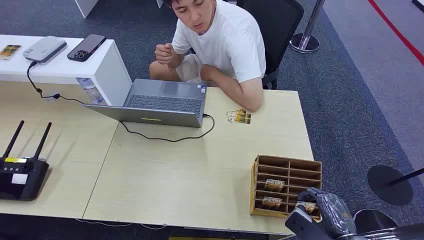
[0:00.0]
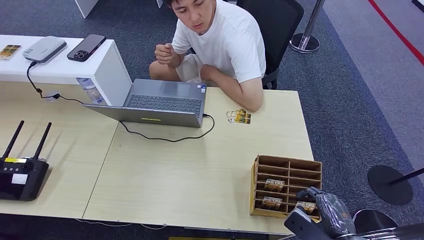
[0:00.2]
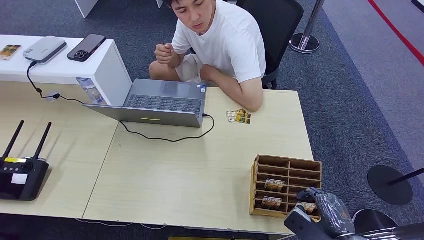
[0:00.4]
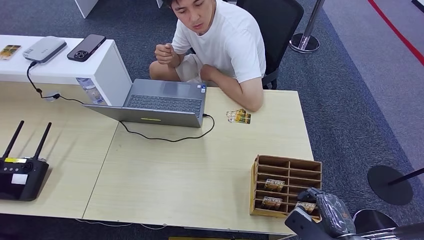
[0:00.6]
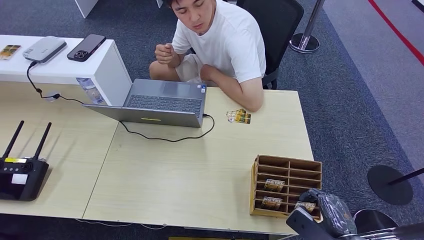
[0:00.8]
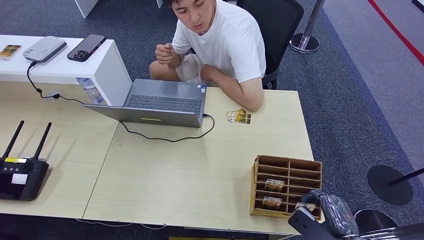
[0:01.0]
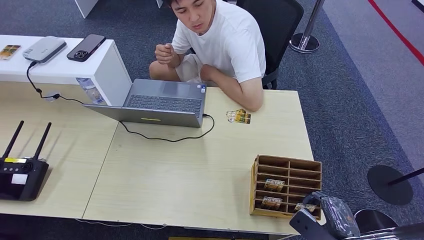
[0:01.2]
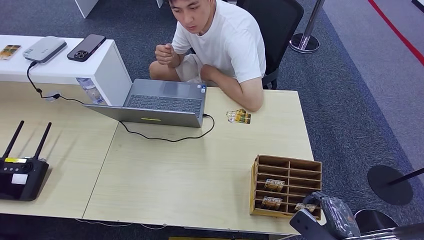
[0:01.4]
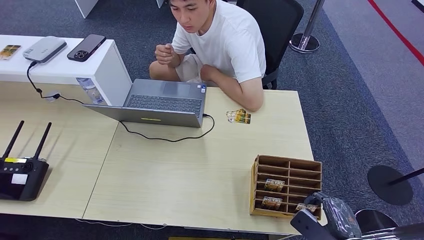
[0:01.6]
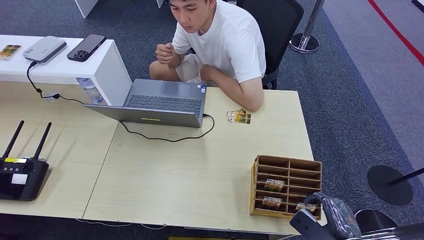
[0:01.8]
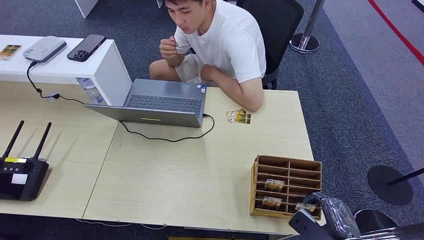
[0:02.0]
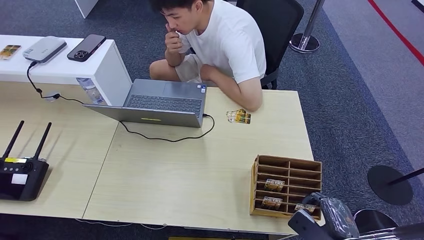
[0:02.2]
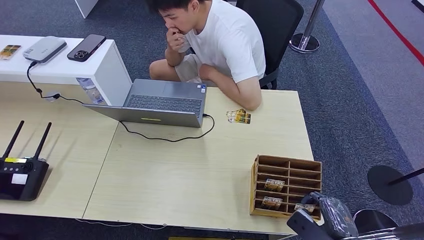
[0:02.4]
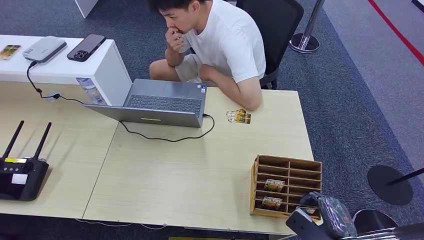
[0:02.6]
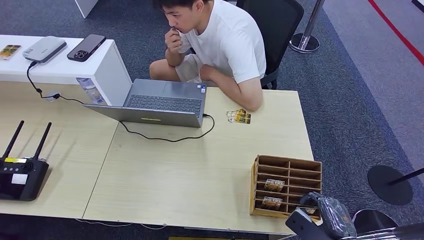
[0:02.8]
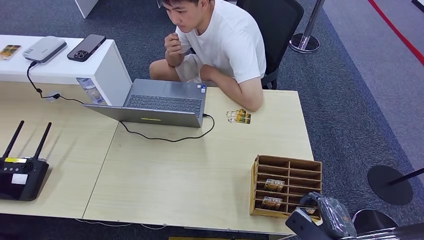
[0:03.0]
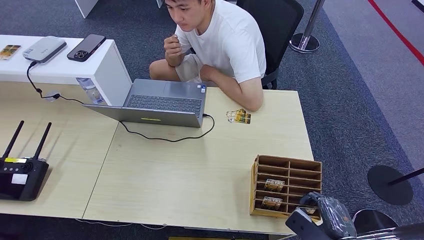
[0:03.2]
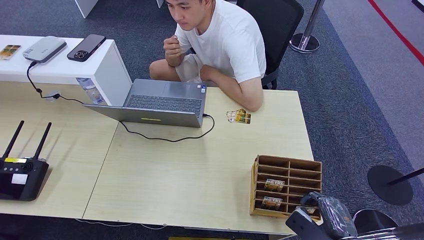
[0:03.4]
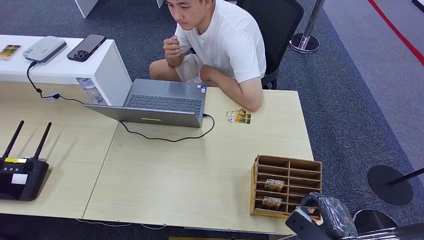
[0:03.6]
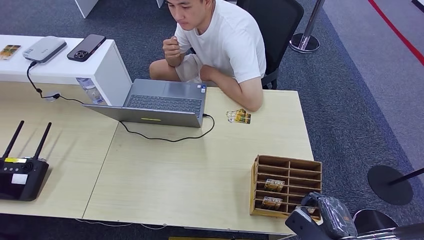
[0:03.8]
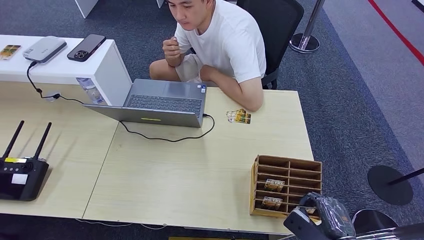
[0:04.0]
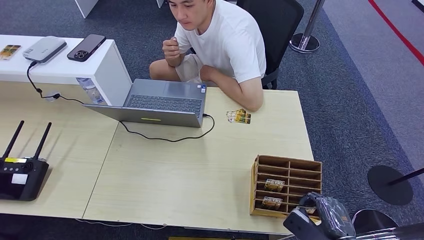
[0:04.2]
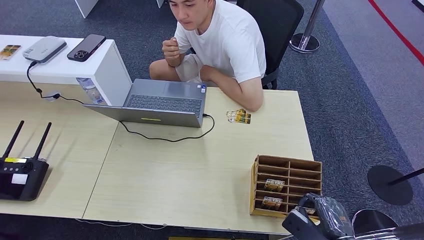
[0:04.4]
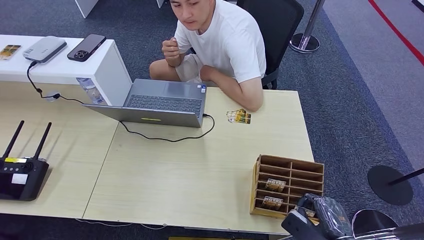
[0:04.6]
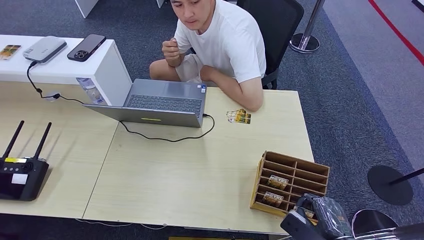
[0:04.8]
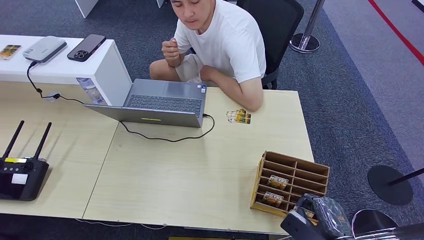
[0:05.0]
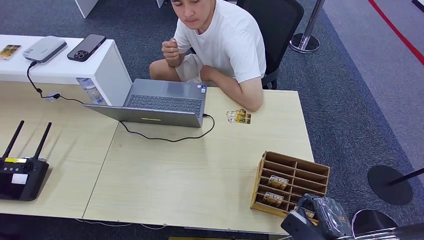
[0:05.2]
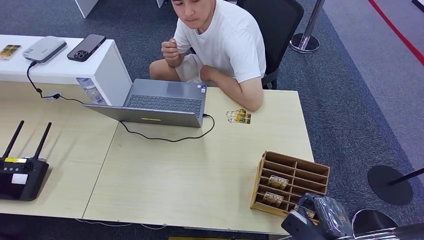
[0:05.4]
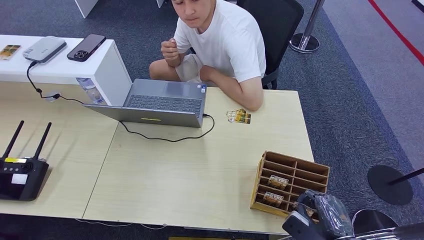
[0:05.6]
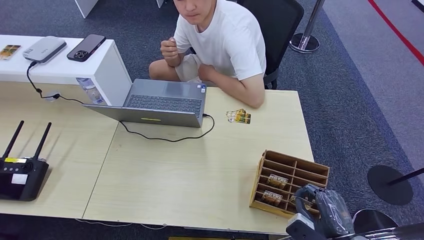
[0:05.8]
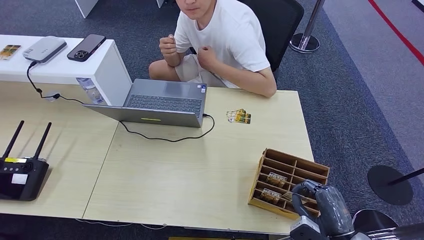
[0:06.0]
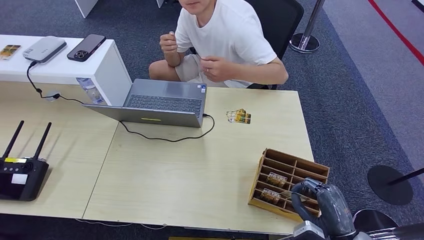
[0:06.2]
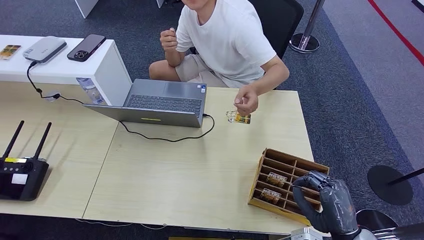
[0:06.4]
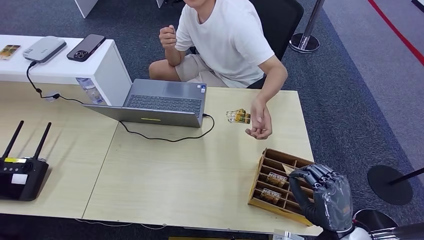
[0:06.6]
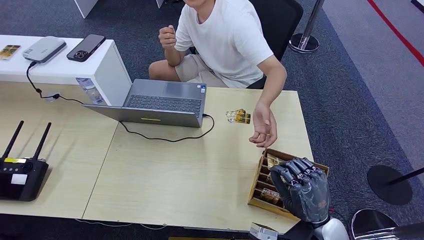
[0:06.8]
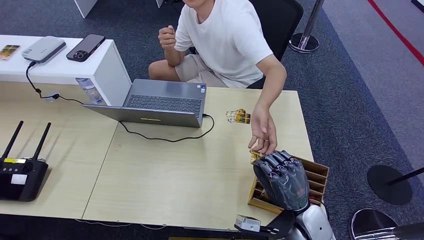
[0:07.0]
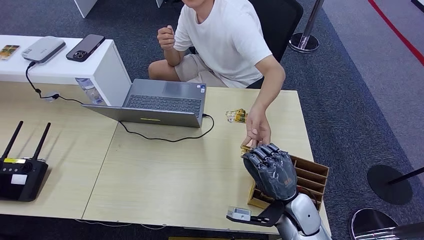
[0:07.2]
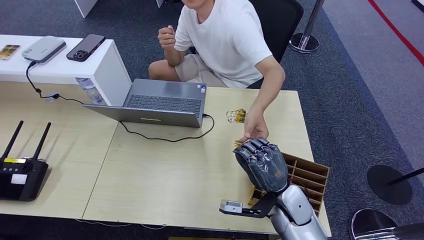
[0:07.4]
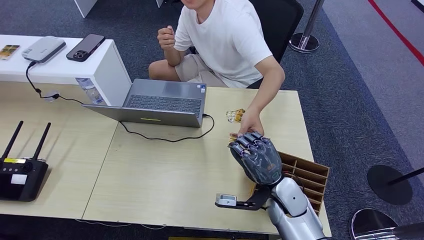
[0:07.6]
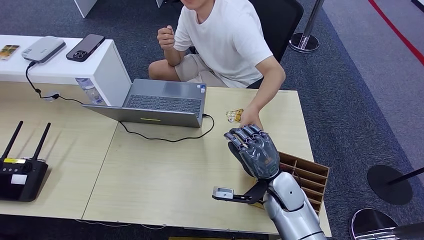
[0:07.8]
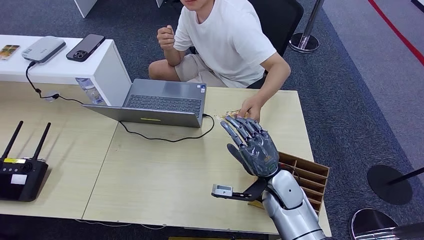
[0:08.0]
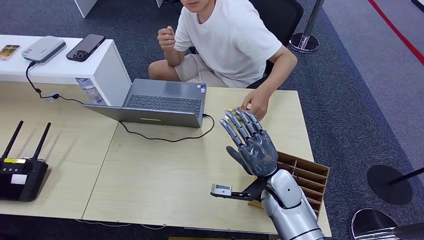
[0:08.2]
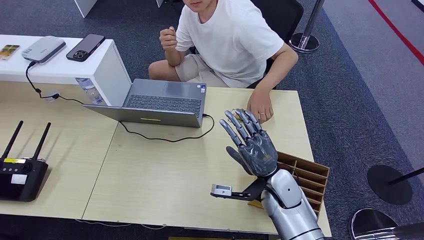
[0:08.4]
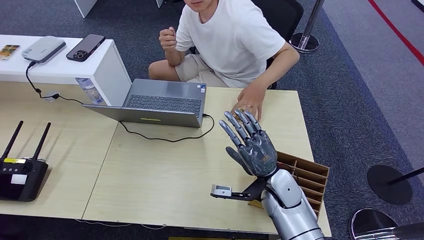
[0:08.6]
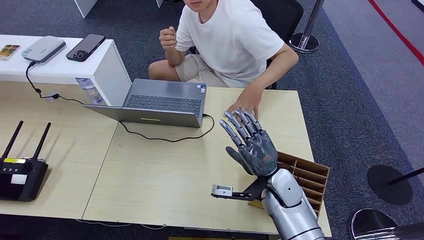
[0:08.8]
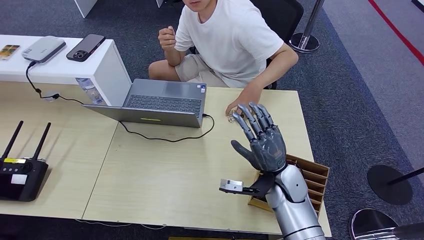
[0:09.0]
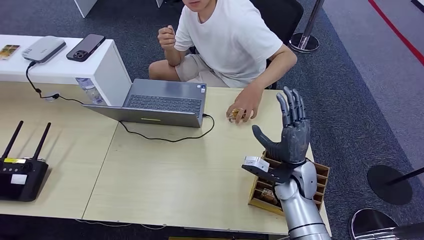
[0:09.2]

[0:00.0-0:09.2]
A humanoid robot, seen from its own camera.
Step, 0:00.0 to 0:06.6: Pick up the key card from the card box.
Step, 0:07.0 to 0:09.0: Hand the key card to the target.
0:01.6 to 0:04.6: Both hands stay about where they are.
0:06.2 to 0:07.6: The right hand moves forward and to the left, approximately 20 cm.

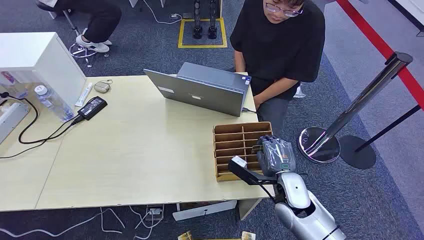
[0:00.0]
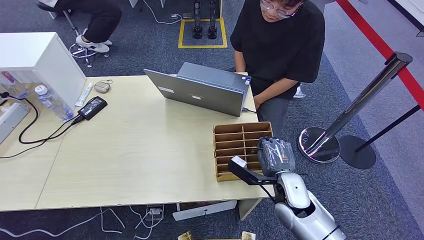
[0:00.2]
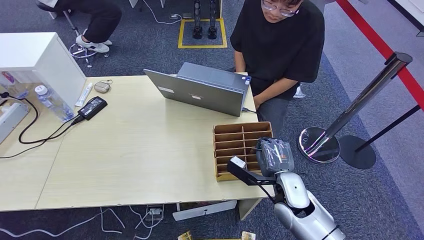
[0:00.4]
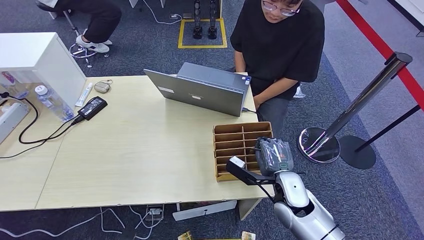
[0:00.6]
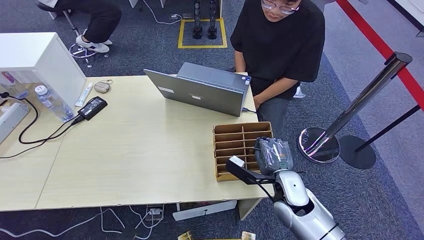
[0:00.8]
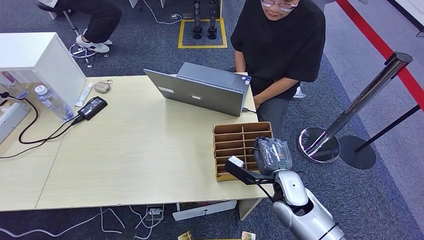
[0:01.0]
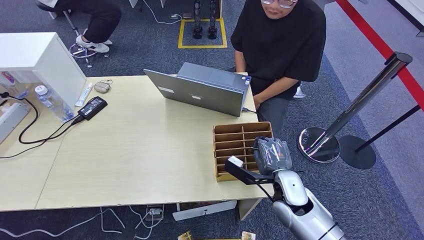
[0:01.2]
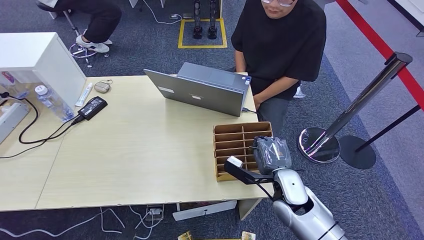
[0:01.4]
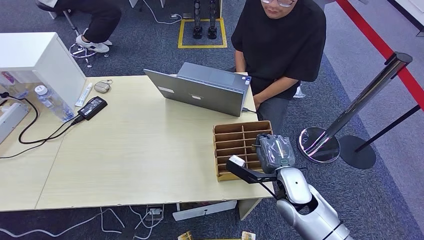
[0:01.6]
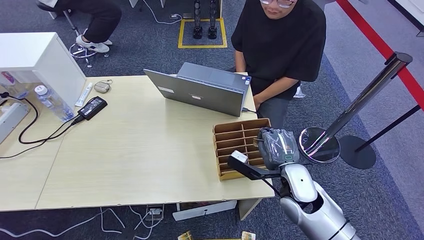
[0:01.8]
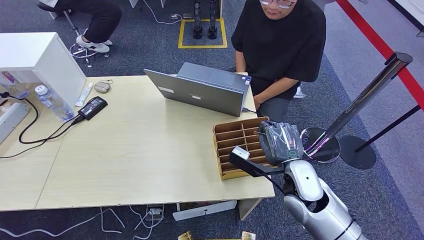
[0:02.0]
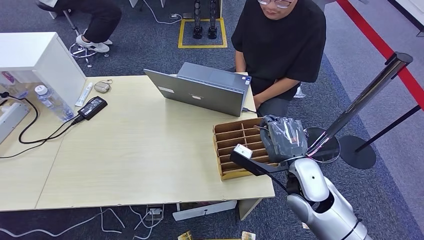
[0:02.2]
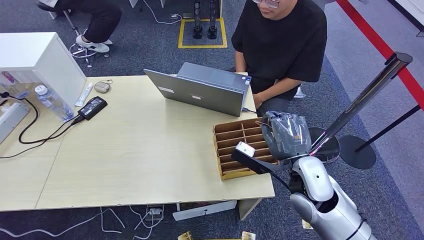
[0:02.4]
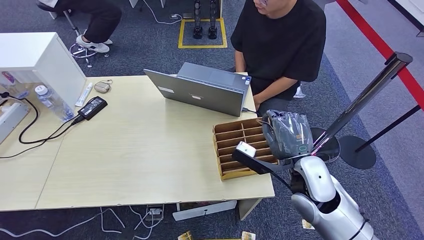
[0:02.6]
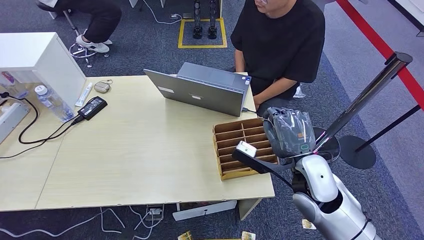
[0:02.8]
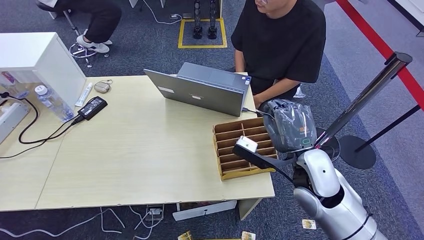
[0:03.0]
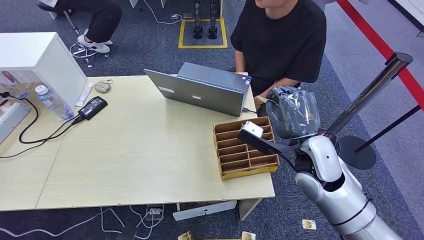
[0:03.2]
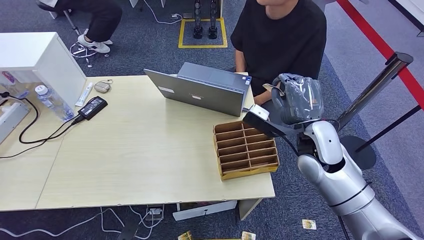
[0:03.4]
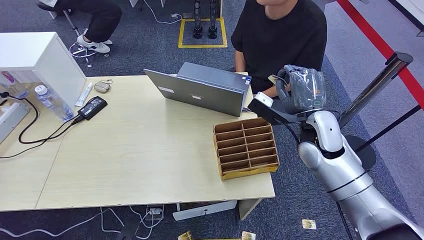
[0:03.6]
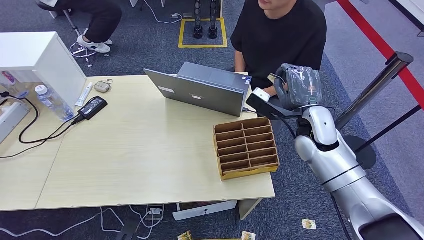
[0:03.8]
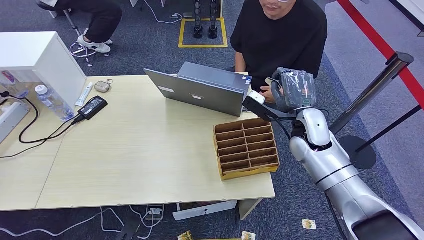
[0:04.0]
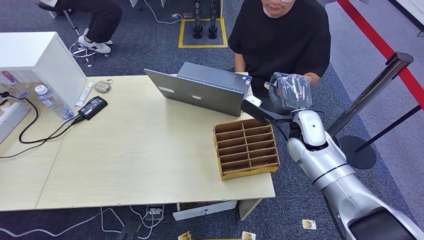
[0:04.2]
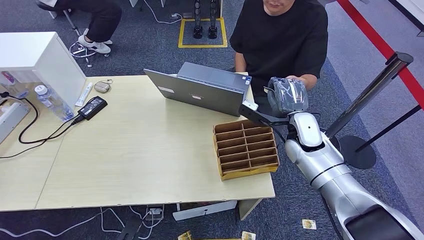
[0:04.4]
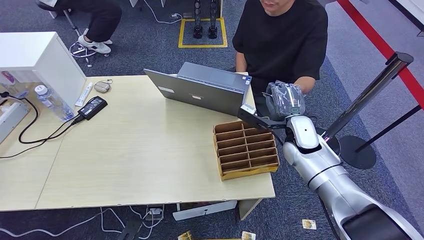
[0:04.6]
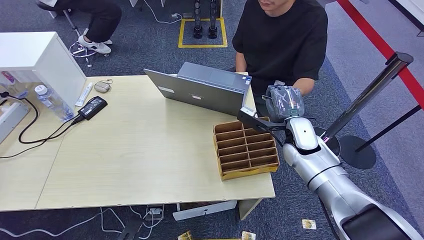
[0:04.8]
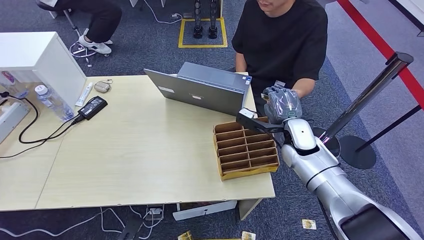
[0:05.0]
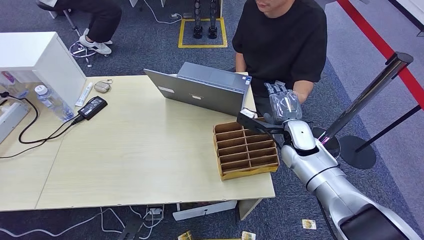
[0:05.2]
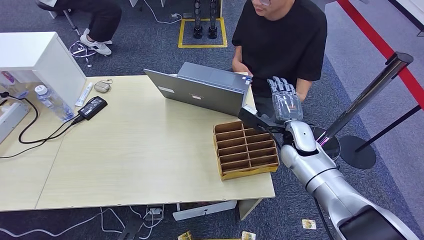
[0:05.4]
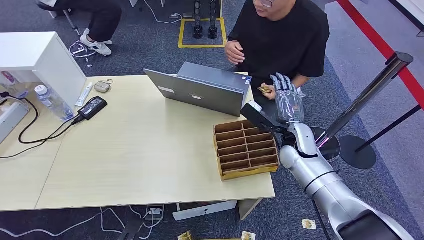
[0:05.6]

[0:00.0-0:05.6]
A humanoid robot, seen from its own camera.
Step, 0:00.0 to 0:02.6: Pick up the key card from the card box.
Step, 0:02.8 to 0:05.4: Hand the key card to the target.
0:01.4 to 0:02.8: The right hand heads upward, covering approximately 10 cm.
0:02.8 to 0:04.2: The right hand goes about 15 cm forward.
0:04.2 to 0:05.6: There are only small adjustments of the hands.

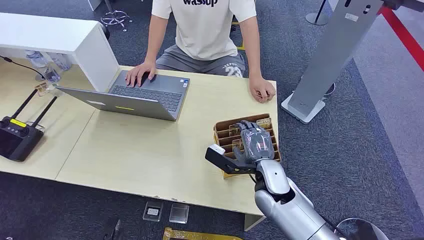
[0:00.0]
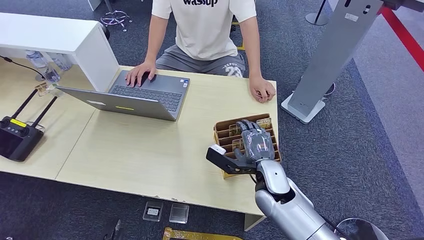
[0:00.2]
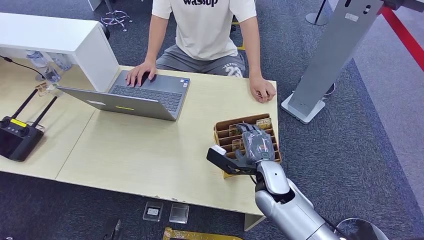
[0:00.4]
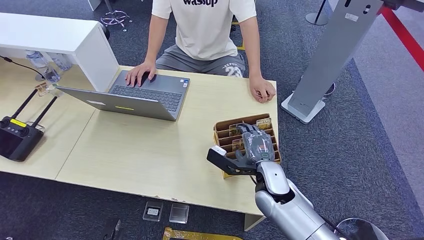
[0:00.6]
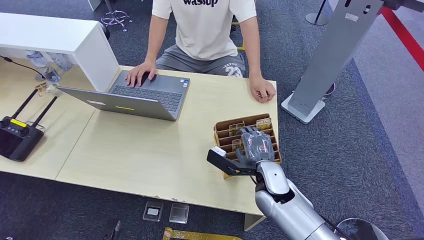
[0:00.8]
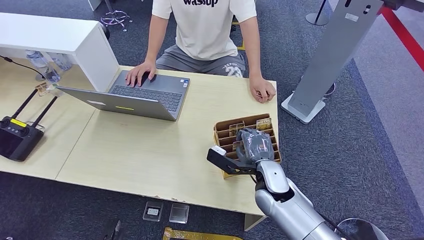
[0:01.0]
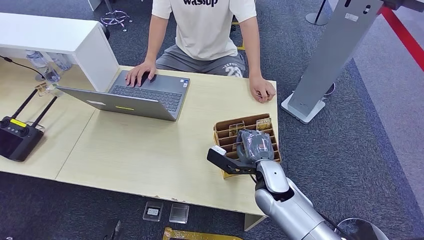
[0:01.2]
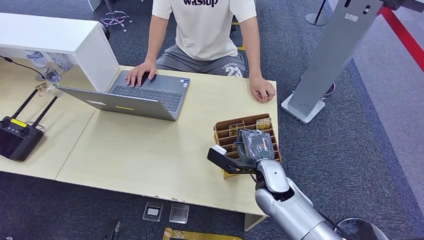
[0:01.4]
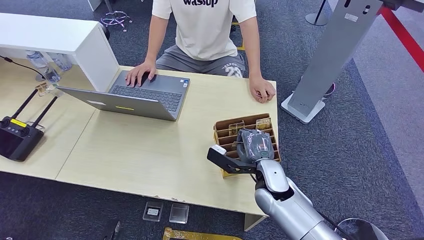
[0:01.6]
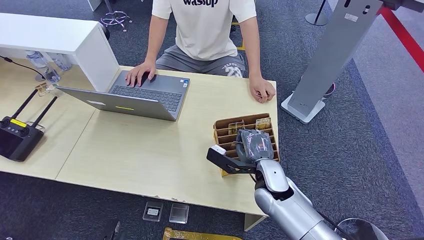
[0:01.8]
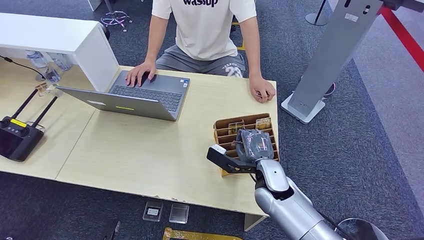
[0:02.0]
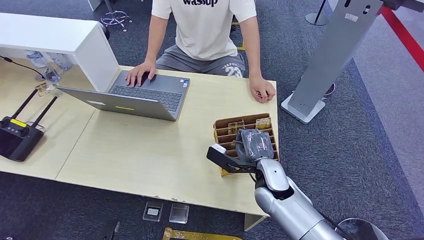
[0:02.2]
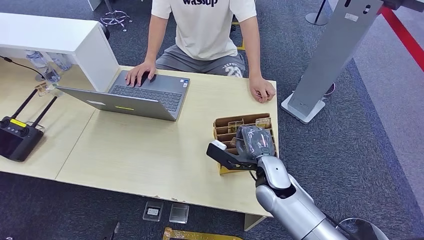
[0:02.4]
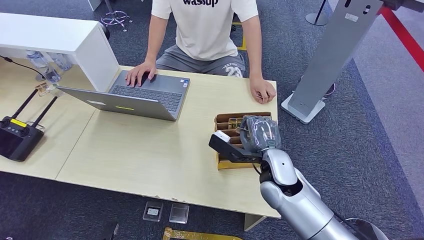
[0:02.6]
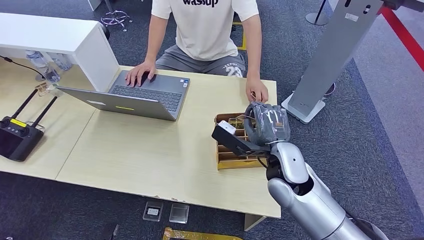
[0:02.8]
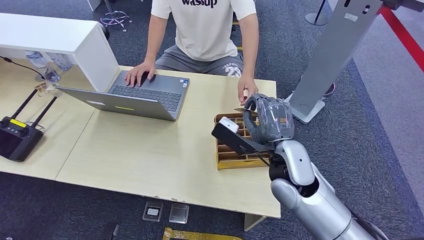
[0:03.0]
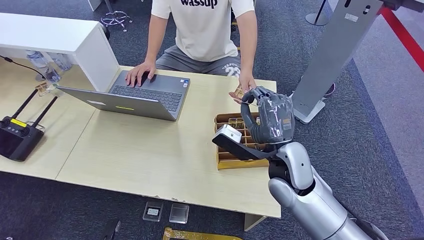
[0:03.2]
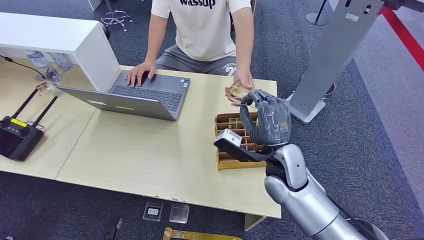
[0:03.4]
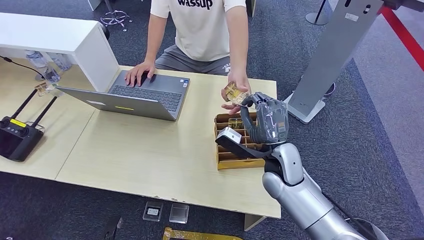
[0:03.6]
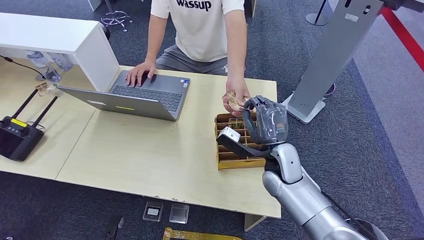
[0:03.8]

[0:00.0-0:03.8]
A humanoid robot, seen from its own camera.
Step, 0:00.0 to 0:02.6: Pick up the key card from the card box.
0:01.2 to 0:02.6: The hands make only small movements.
